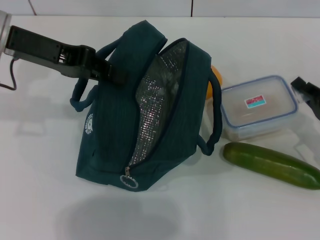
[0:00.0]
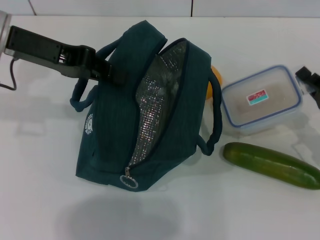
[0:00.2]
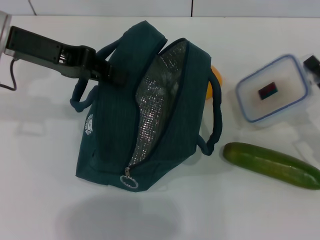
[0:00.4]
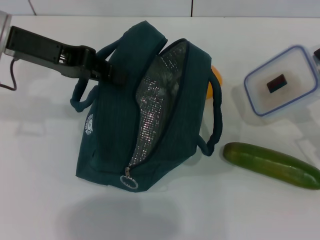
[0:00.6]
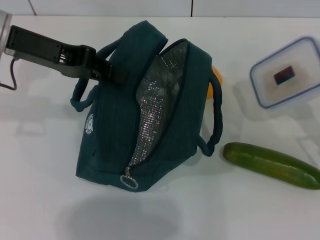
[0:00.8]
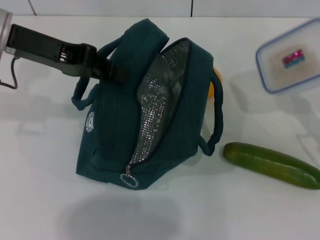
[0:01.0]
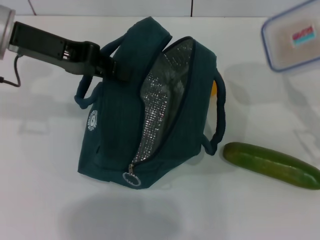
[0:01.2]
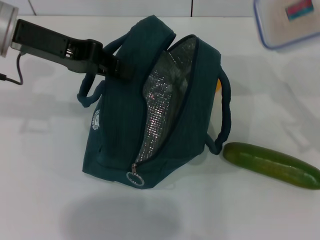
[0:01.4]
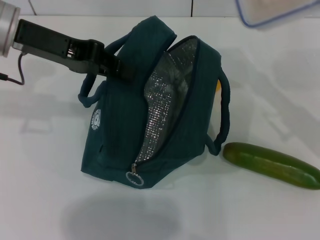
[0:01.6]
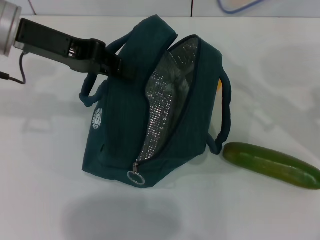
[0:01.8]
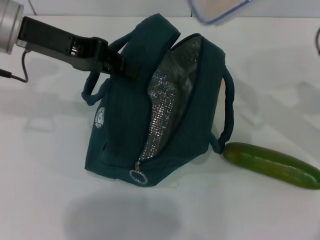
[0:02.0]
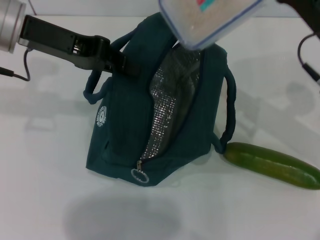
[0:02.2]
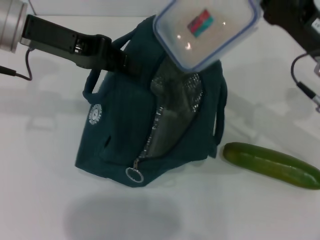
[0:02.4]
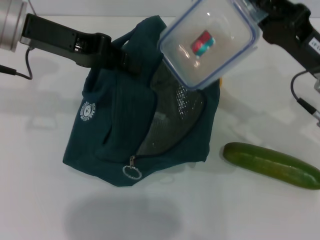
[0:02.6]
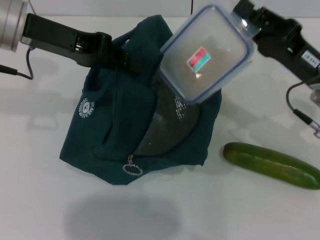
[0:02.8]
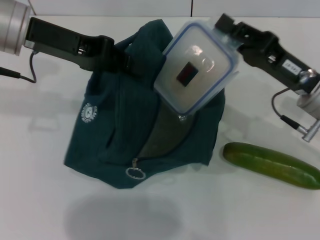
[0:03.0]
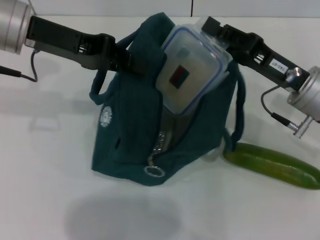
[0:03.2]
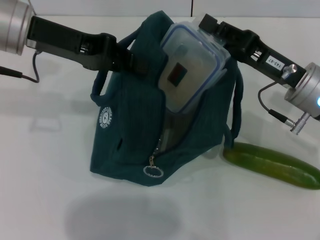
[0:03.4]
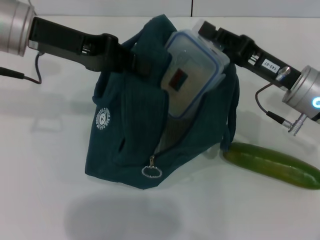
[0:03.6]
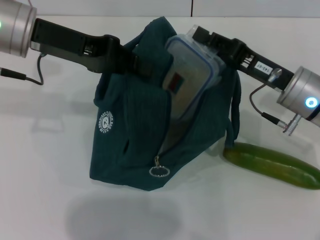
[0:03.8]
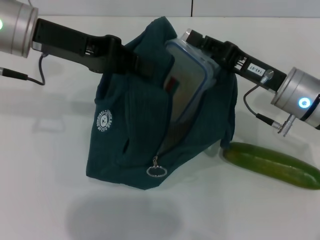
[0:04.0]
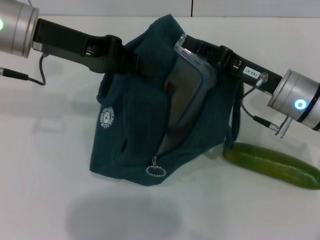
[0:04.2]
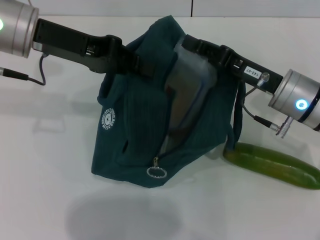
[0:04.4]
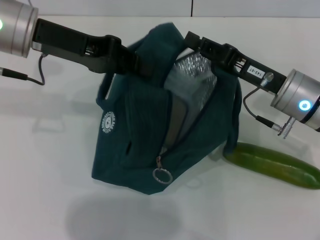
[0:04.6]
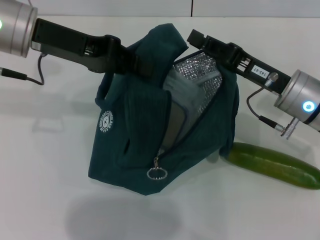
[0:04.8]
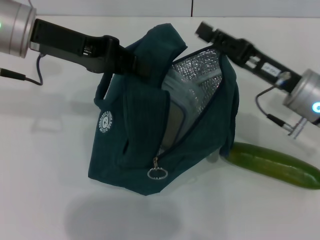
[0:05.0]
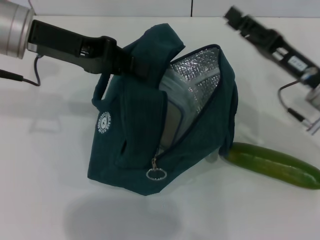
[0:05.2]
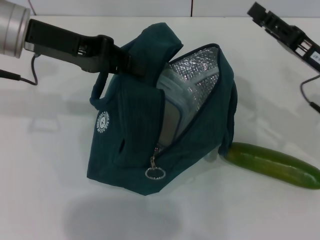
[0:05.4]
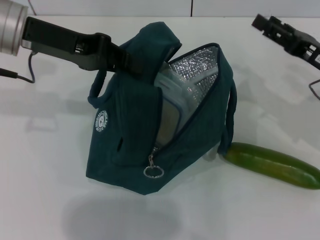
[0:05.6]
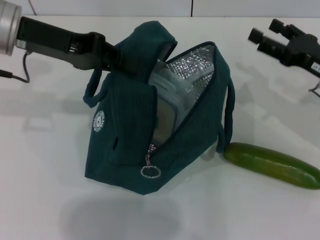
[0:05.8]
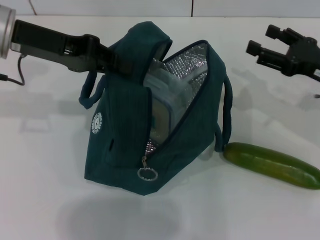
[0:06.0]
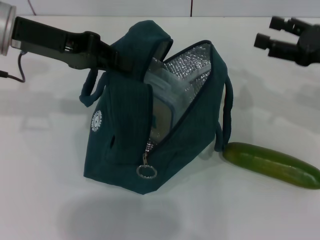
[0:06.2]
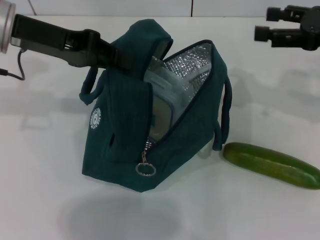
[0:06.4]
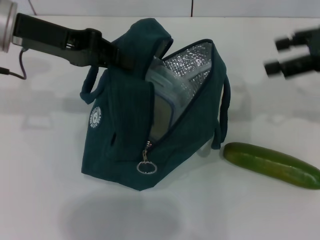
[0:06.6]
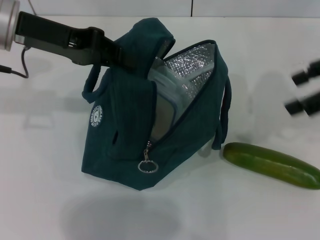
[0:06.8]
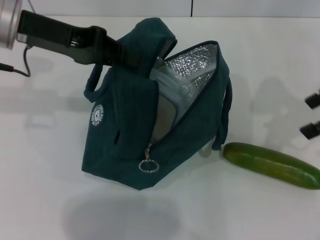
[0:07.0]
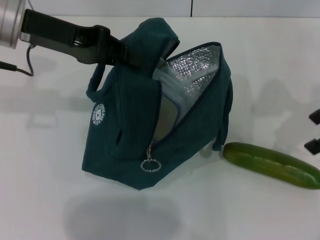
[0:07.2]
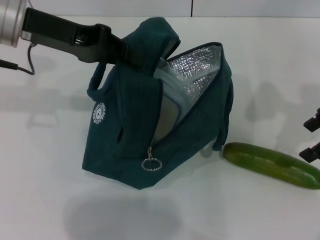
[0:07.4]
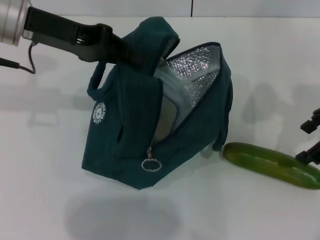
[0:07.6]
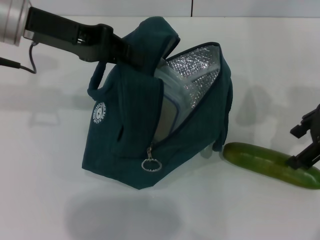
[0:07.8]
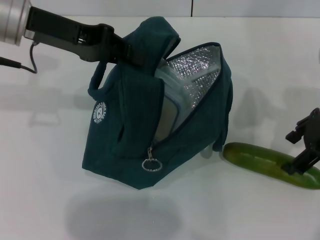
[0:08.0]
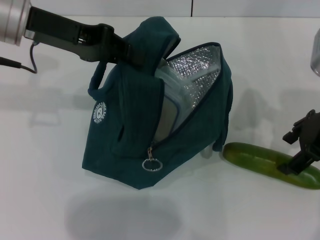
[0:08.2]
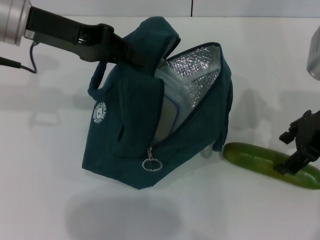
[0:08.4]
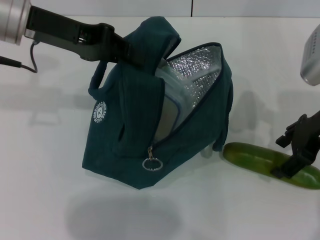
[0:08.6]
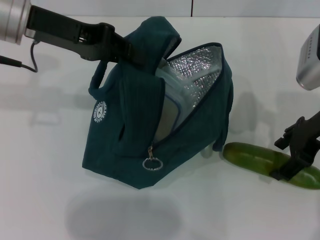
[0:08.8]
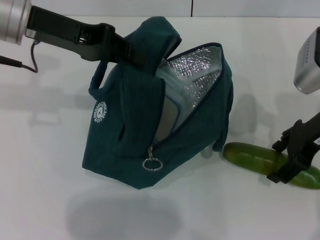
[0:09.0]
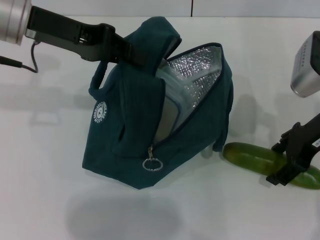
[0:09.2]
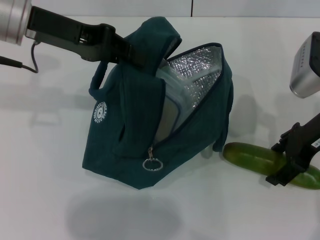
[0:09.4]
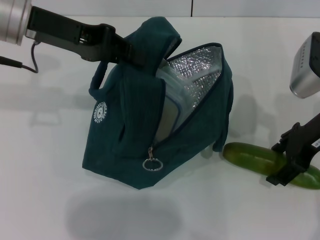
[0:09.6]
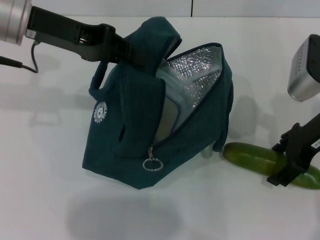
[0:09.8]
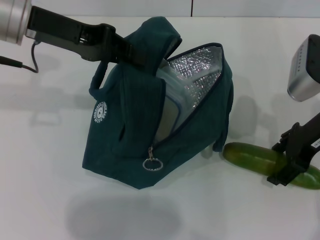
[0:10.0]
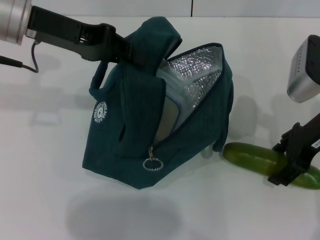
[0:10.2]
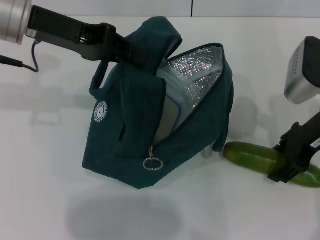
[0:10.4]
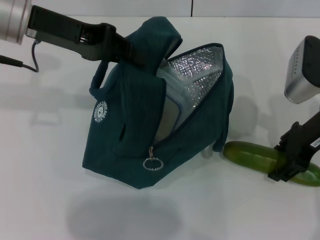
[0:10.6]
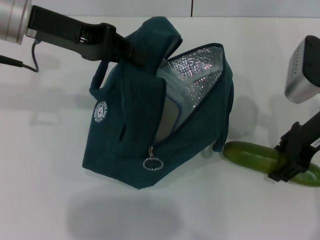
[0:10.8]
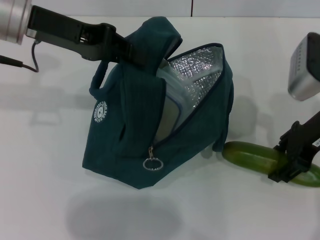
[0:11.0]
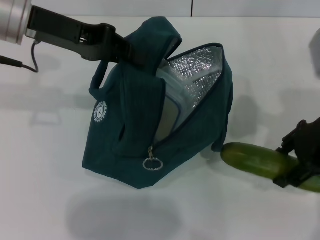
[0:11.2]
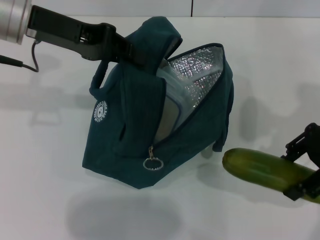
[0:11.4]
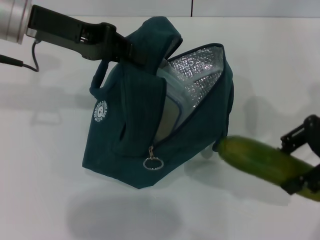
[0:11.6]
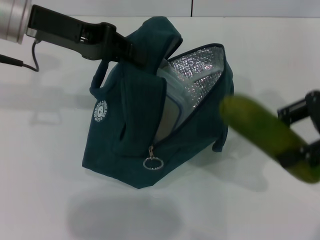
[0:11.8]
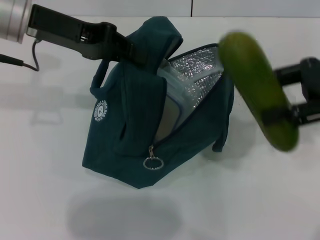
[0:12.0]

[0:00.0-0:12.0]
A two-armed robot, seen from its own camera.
Step, 0:00.0 to 0:04.8: Place the lunch box into the lunch bag with your right hand.
Step, 0:05.0 to 0:10.8: Pick up the cucumber with your right hand.
0:00.0 to 0:01.6: The right gripper is displaced upward by about 10 cm.
0:01.6 to 0:03.0: The right gripper shifts approximately 5 cm to the left.
0:04.4 to 0:06.0: The right gripper heads to the right, covering about 10 cm, and opens.
0:06.0 to 0:07.6: The right gripper moves upward, roughly 10 cm.
0:07.6 to 0:09.0: The right gripper heads downward, covering approximately 5 cm.
0:09.0 to 0:10.4: The two grippers keep their place.
0:10.4 to 0:12.0: The right gripper goes some 10 cm upward and to the right.

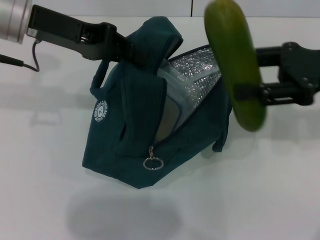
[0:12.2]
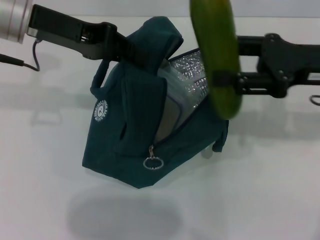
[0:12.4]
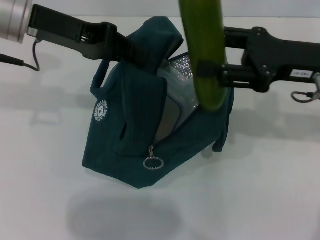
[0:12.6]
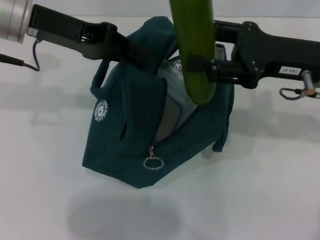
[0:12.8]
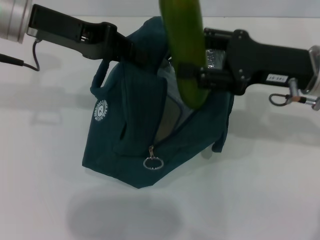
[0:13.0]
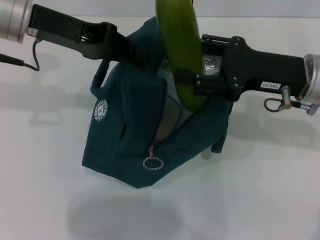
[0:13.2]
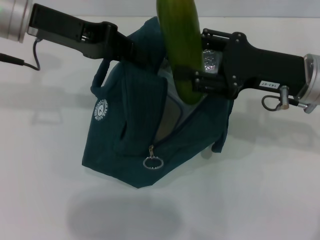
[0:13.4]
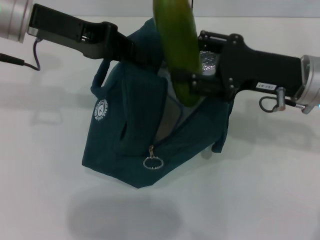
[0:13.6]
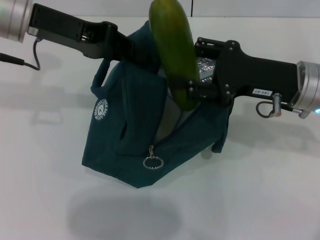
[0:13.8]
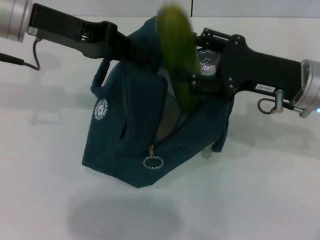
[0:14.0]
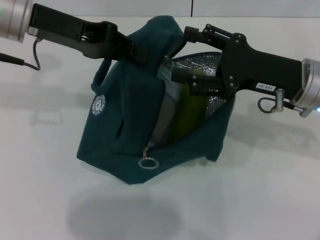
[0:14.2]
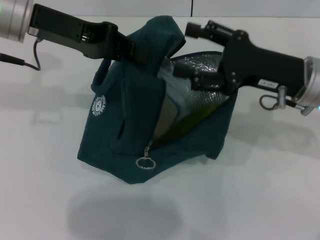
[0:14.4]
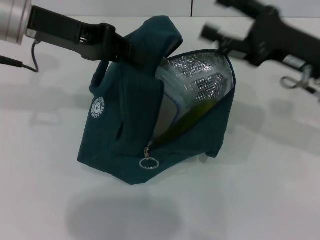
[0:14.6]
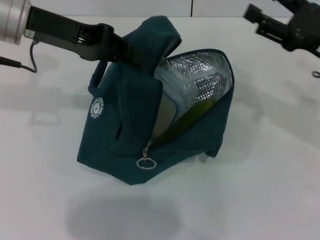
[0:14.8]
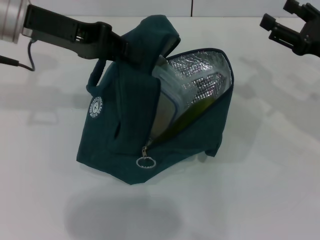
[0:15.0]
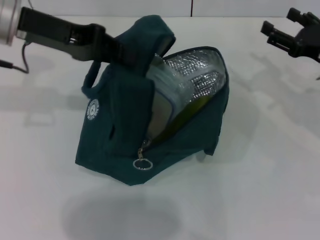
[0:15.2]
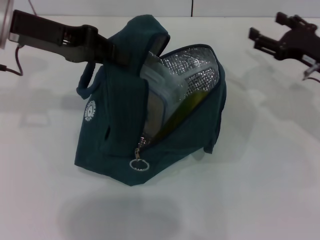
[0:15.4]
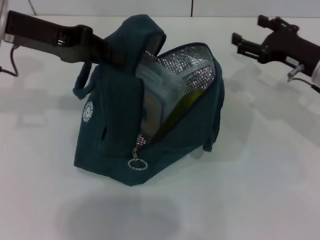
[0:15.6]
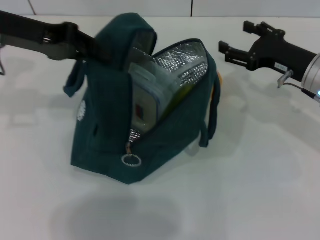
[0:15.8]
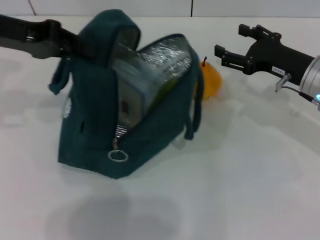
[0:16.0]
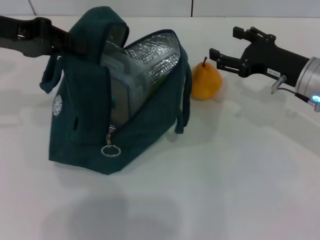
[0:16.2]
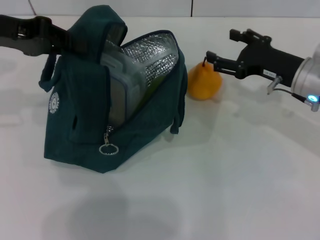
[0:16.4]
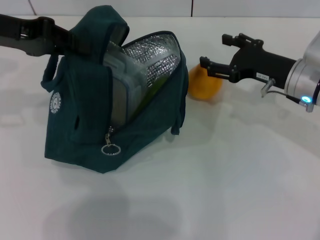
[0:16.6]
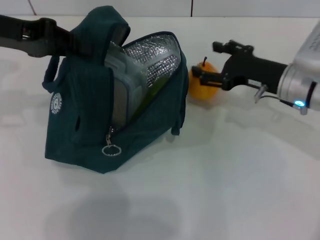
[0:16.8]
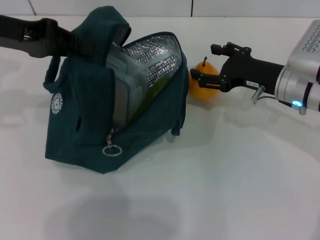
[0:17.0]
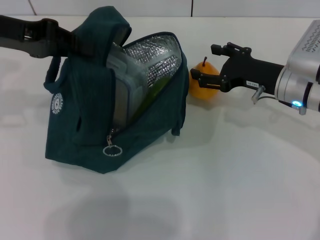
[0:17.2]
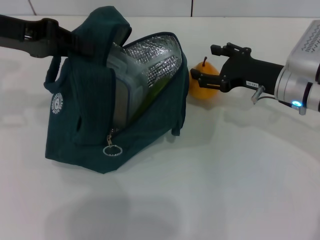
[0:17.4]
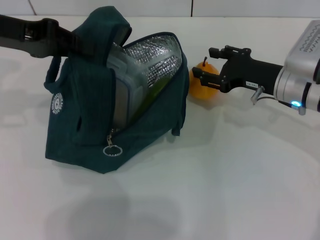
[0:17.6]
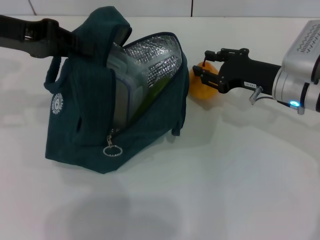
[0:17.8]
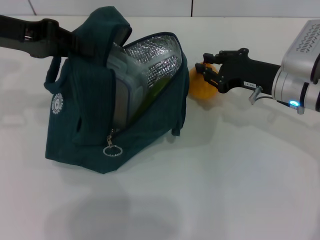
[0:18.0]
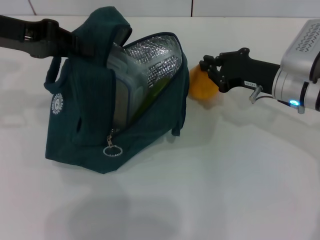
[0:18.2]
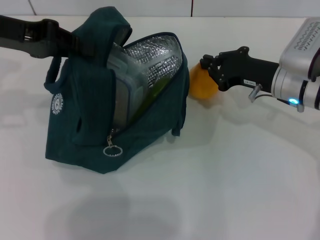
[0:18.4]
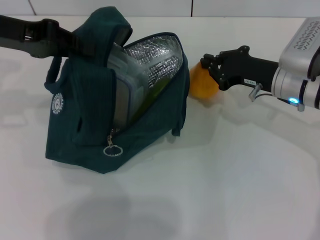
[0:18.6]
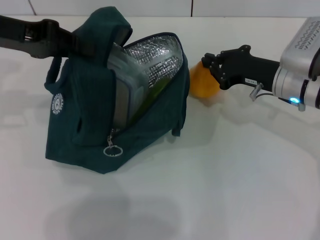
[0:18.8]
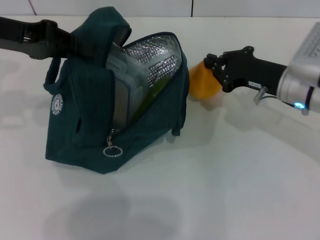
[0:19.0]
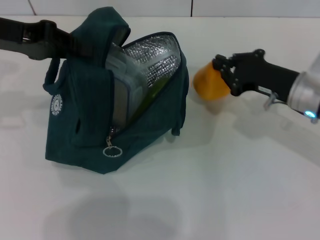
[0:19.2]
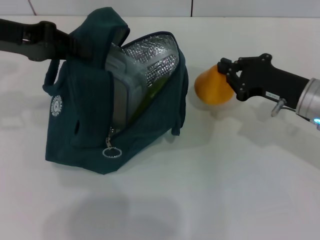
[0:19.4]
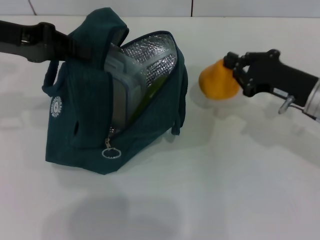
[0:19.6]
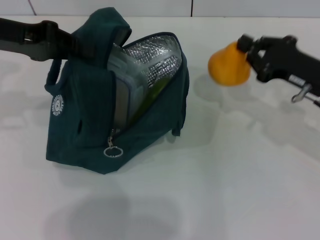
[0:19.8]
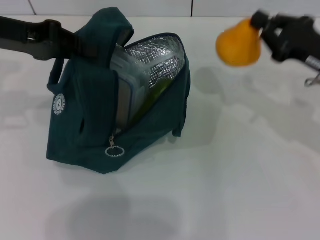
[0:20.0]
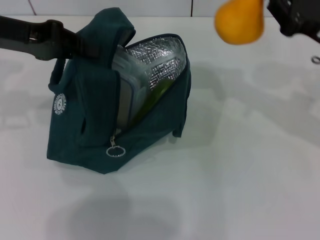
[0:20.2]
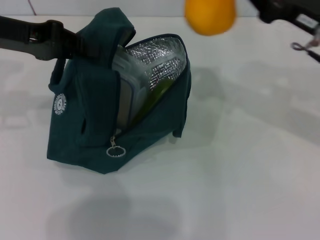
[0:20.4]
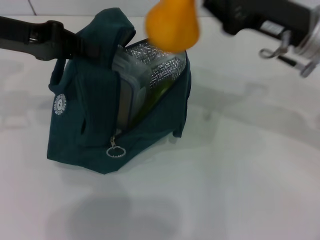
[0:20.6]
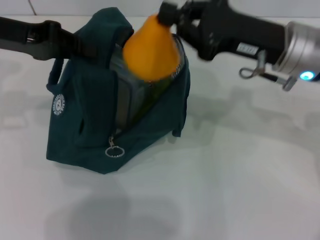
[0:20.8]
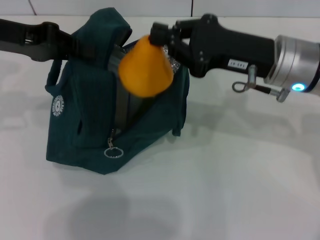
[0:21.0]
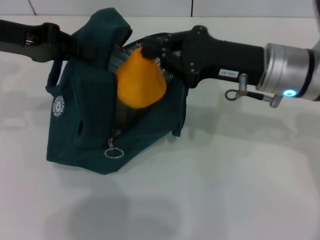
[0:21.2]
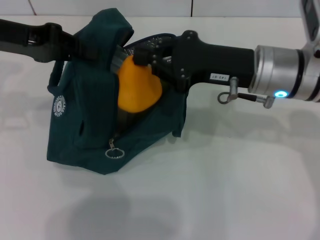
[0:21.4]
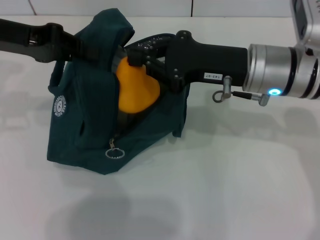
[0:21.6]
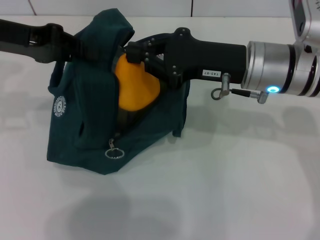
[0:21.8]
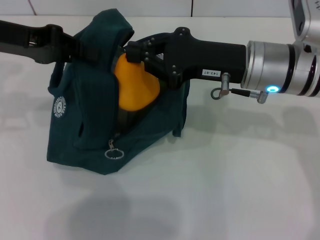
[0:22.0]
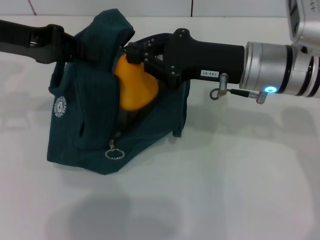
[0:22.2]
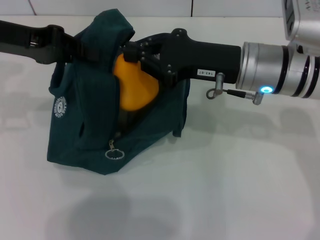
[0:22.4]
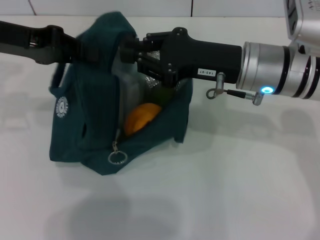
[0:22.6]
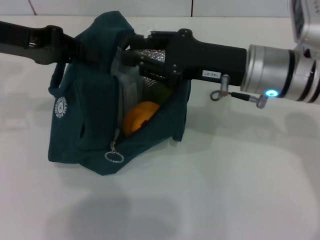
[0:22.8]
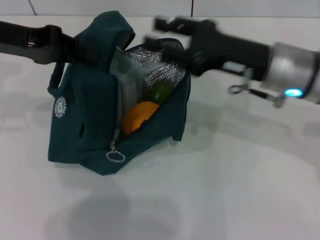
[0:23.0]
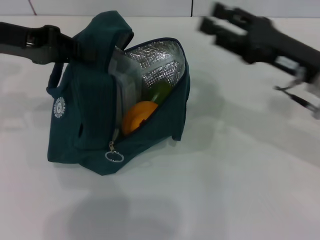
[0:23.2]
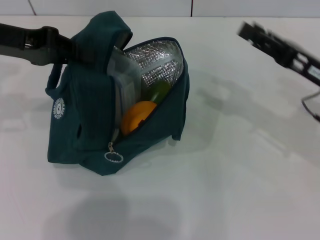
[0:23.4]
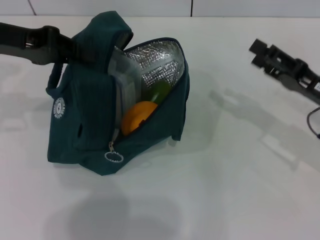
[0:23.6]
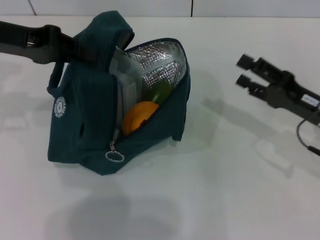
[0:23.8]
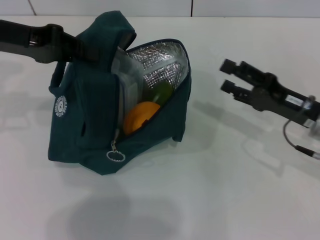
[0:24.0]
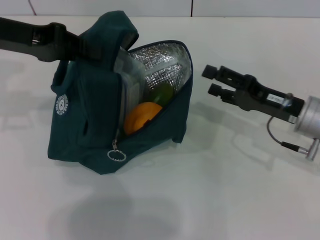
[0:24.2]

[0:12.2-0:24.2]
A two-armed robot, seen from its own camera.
Step, 0:12.2 to 0:14.4: Put the cucumber into the lunch bag with your right hand.
Step, 0:14.6 to 0:18.4: Grab the pear with your right hand.
0:12.2 to 0:13.8: The right gripper travels to the left and downward by roughly 10 cm.
0:13.8 to 0:15.2: The right gripper moves to the right, roughly 10 cm.
0:15.2 to 0:16.6: The grippers both shift to the left by roughly 5 cm.
0:16.6 to 0:18.2: The right gripper closes its fingers.
0:18.2 to 0:19.8: The right gripper is displaced to the right by approximately 5 cm.
0:19.8 to 0:21.2: The right gripper travels to the left and upward by roughly 10 cm.
0:21.2 to 0:22.6: The grippers make only small movements.
0:22.6 to 0:24.2: The right gripper travels to the right and downward by some 15 cm, and opens.
